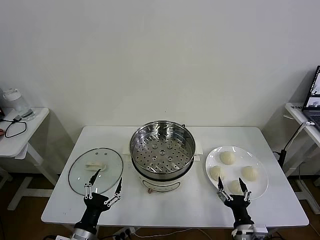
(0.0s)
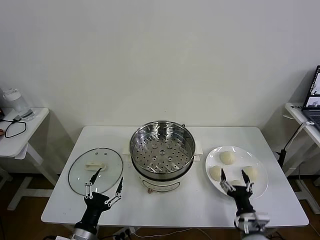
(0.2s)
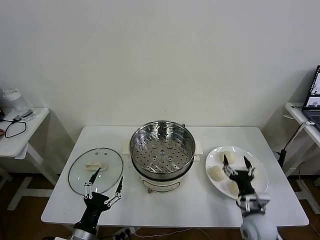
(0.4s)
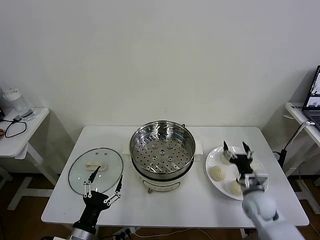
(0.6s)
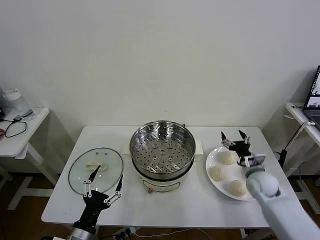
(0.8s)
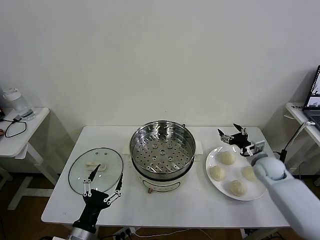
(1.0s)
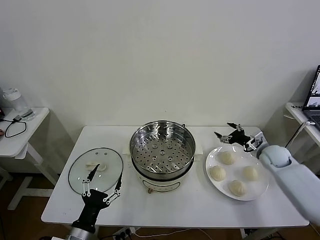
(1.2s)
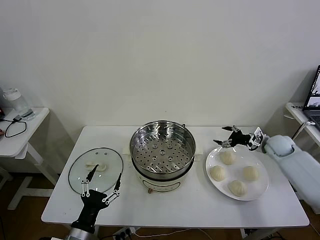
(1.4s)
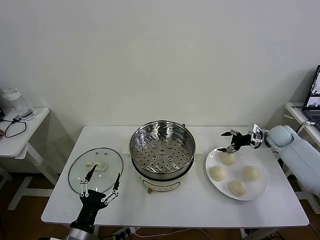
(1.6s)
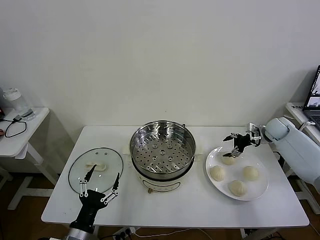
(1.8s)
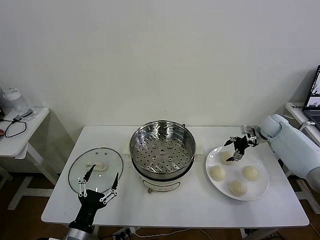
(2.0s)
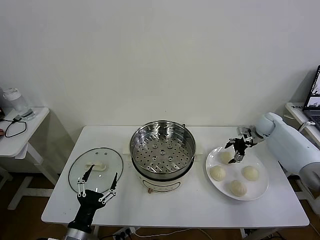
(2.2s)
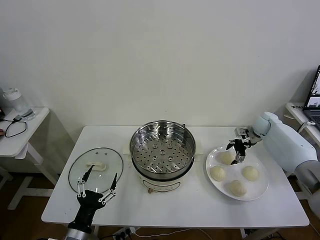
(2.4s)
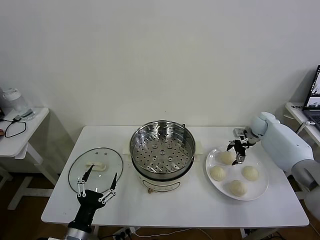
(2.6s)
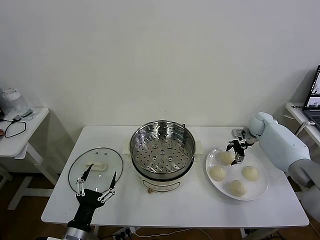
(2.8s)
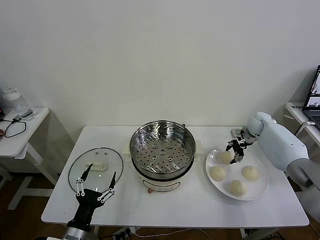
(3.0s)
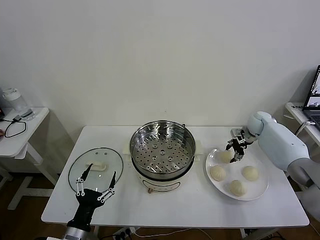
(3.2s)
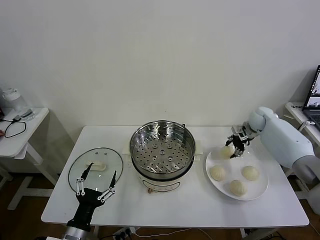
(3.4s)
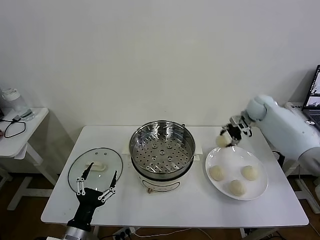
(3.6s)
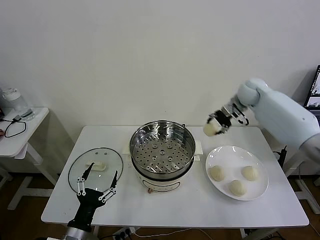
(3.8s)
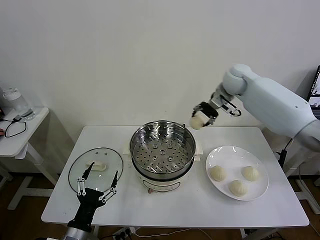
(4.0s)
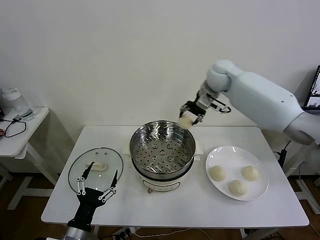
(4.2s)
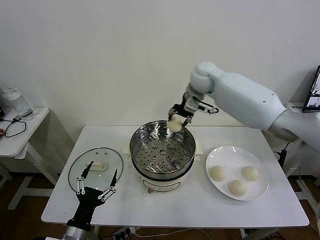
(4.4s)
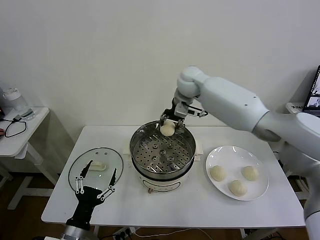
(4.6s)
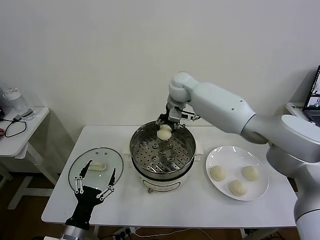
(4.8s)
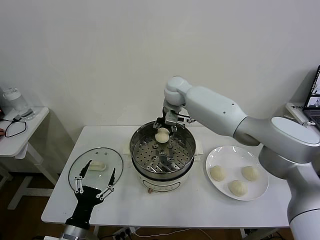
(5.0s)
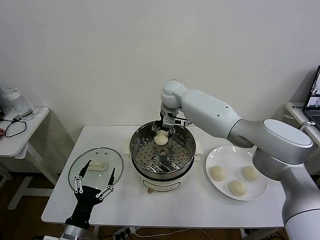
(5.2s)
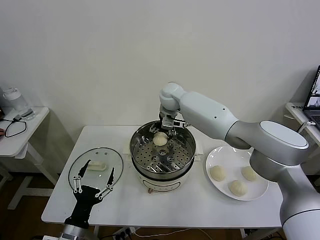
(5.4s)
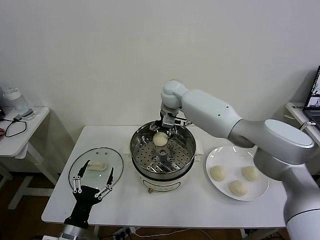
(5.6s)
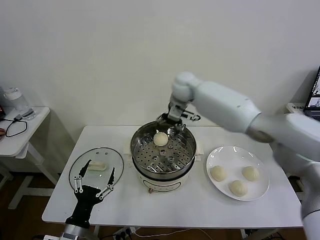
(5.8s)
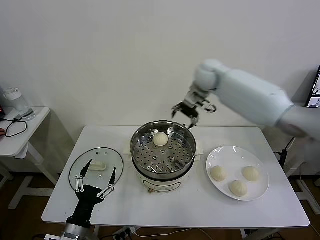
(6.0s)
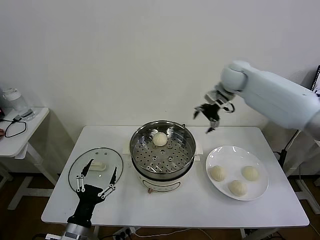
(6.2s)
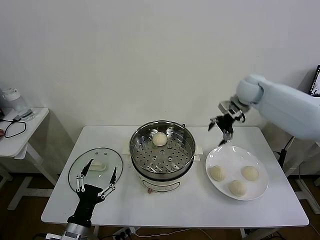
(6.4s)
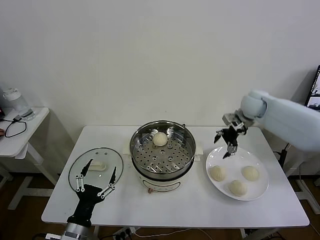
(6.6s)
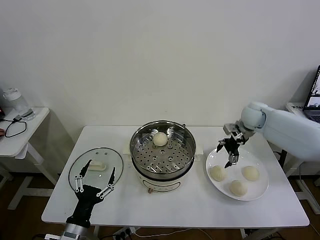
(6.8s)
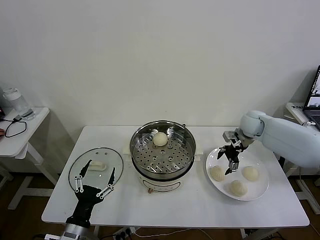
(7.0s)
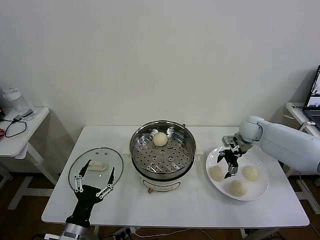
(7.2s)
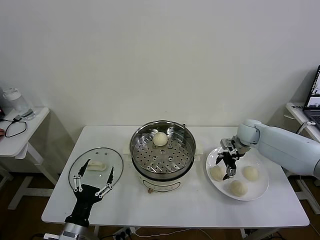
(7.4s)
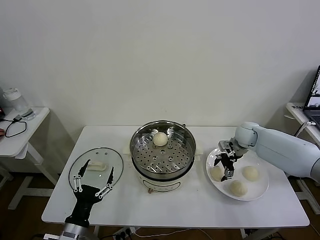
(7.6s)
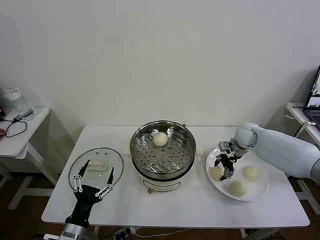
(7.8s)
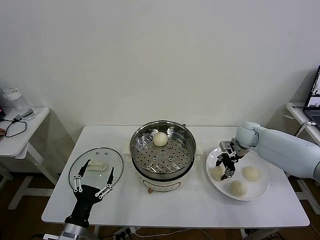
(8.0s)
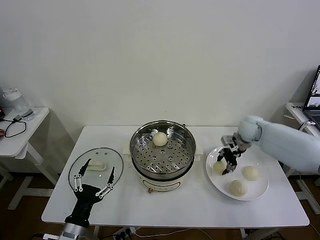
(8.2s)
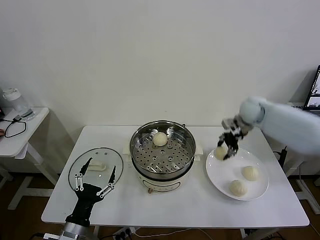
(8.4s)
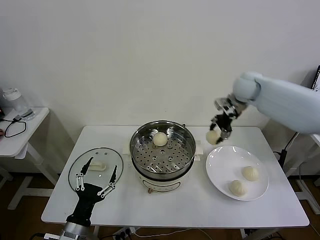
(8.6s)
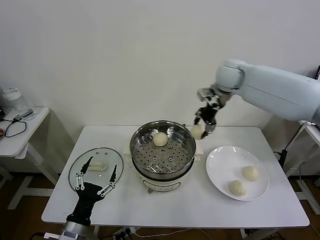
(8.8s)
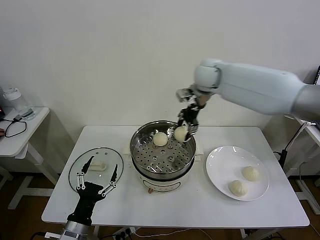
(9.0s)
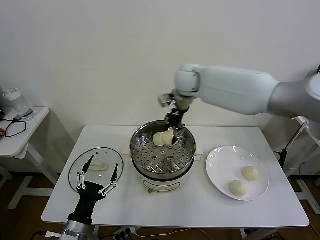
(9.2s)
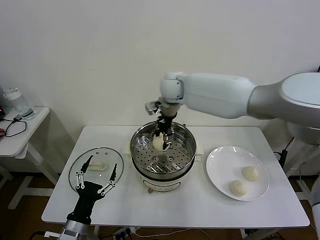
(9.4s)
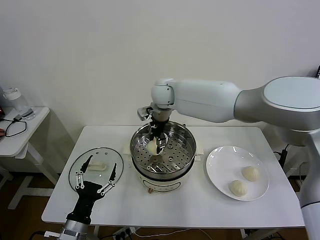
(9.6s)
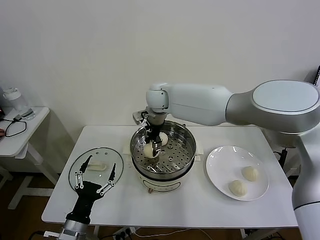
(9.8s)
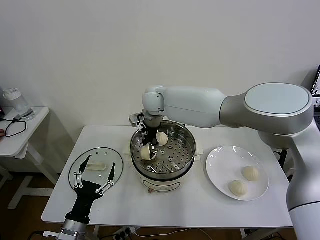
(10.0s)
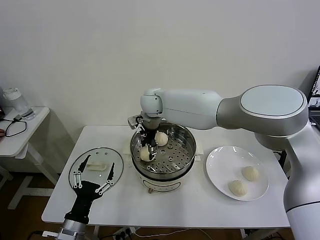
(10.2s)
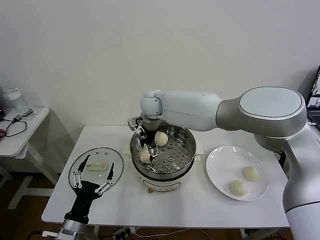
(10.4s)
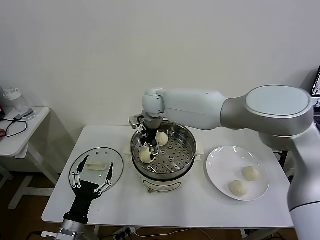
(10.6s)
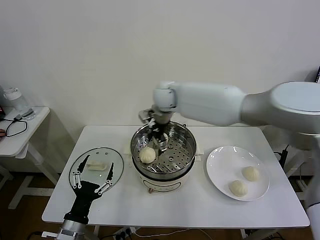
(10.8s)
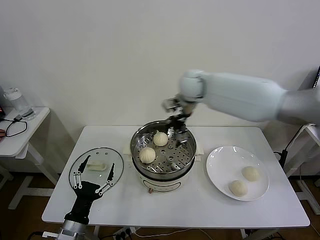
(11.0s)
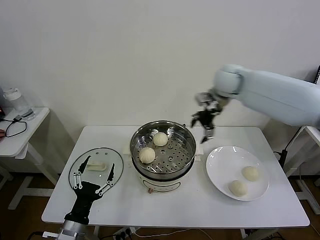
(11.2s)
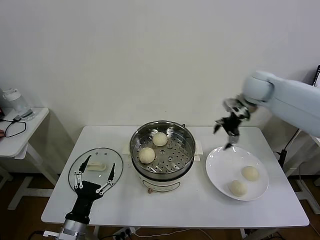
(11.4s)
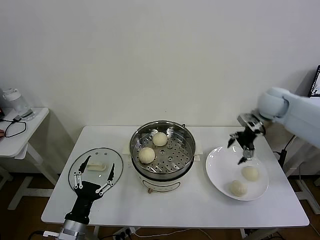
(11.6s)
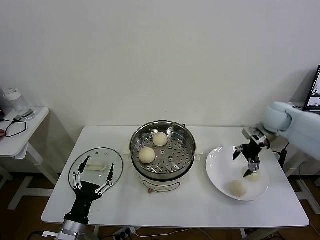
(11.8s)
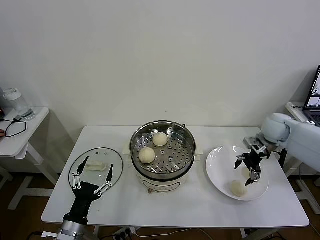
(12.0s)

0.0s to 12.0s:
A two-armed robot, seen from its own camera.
Task of the whole recording: take steamed baozi put them in steamer then cover it.
Step, 0.0s to 3.0s: Grasp the baozi in the plate with right gripper.
Step, 3.2s to 5.6s: Place the baozi on the steamer with right gripper.
Step, 5.8s to 8.0s: Grasp the baozi in the plate with right gripper.
Step, 8.2s to 10.6s: Place the baozi on the steamer with right gripper.
1.6s to 3.0s: The right gripper goes roughly 10 cm forward and to the left, and closes.
3.0s to 4.4s: The right gripper moves to the left and upward, roughly 35 cm.
4.4s to 6.0s: The right gripper goes some 10 cm to the right, and opens up.
6.0s to 7.6s: The right gripper heads downward and to the right, covering about 25 cm.
7.6s to 9.0s: The right gripper goes some 30 cm upward and to the left, and closes up.
9.0s to 10.4s: The right gripper moves to the left and downward, roughly 20 cm, and opens.
10.4s to 12.0s: The right gripper heads to the right, covering approximately 40 cm.

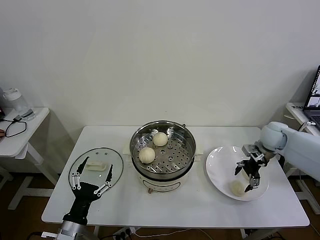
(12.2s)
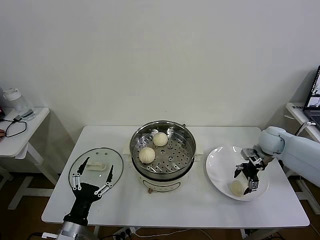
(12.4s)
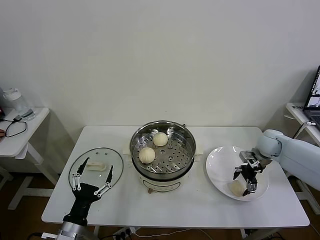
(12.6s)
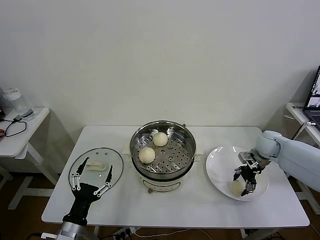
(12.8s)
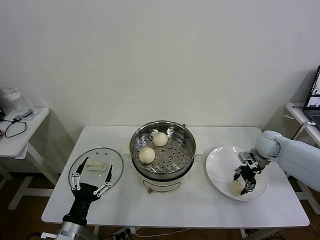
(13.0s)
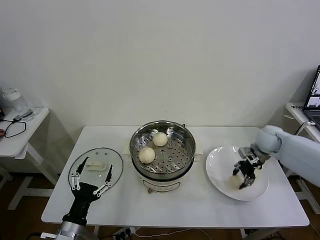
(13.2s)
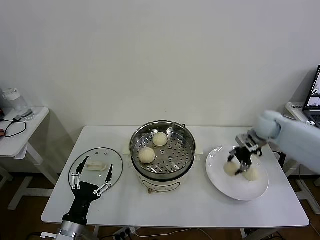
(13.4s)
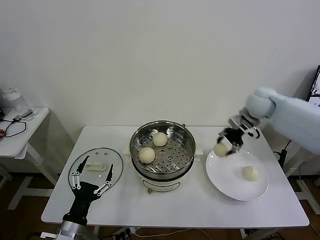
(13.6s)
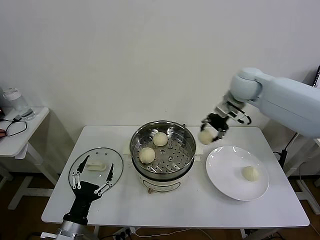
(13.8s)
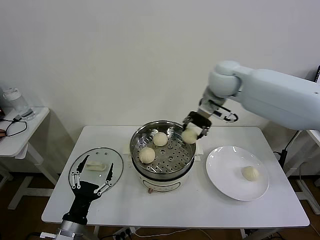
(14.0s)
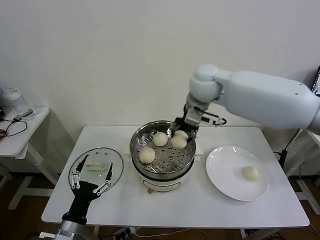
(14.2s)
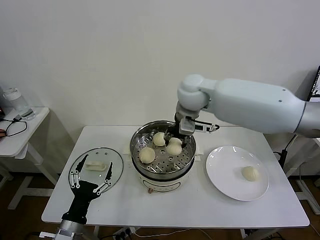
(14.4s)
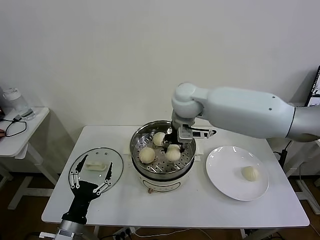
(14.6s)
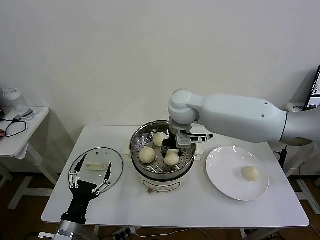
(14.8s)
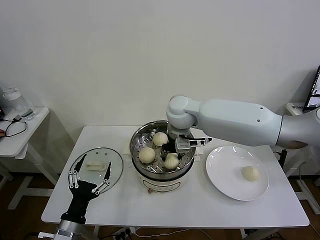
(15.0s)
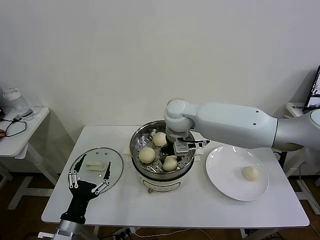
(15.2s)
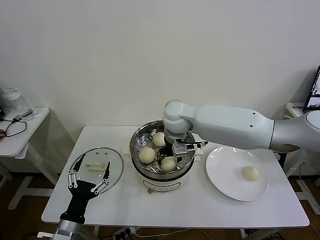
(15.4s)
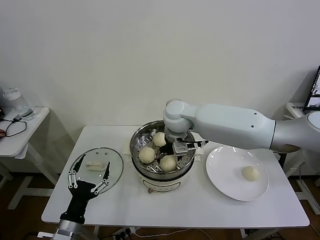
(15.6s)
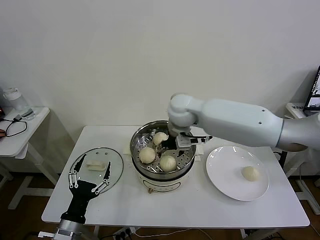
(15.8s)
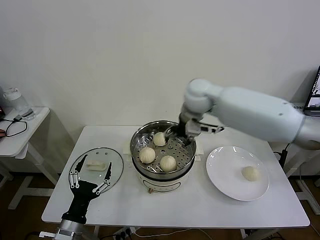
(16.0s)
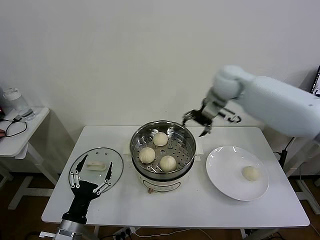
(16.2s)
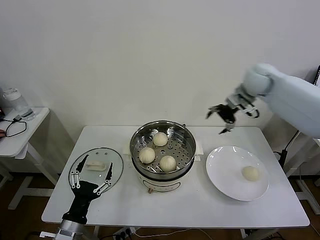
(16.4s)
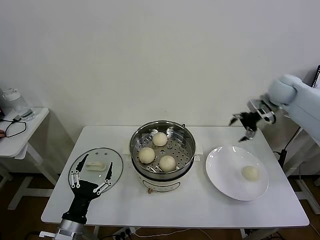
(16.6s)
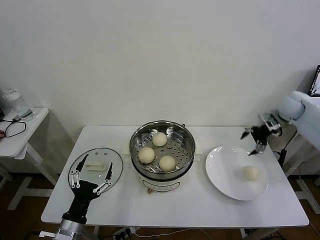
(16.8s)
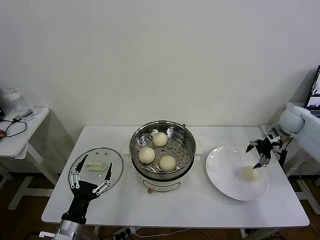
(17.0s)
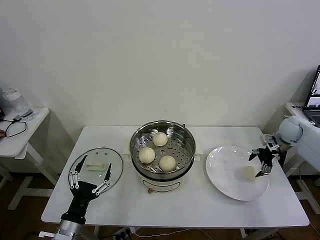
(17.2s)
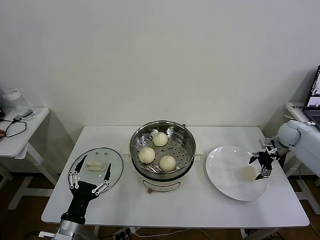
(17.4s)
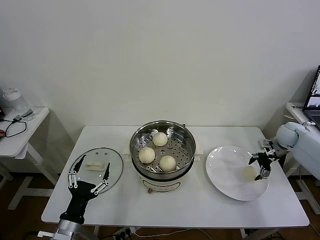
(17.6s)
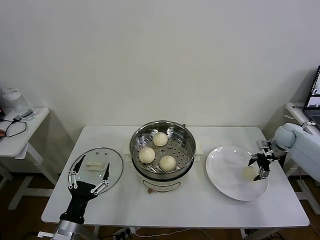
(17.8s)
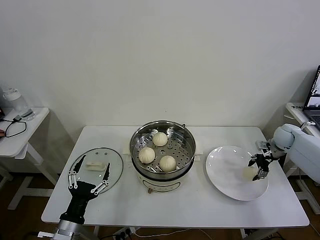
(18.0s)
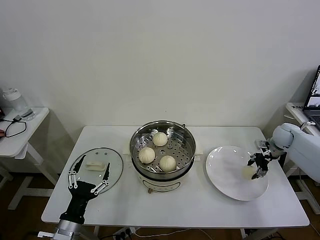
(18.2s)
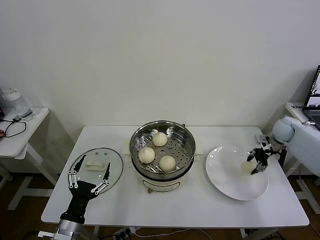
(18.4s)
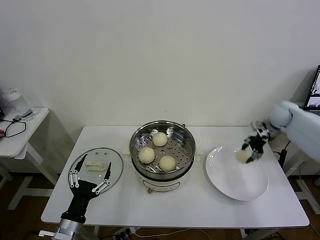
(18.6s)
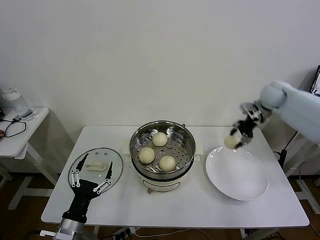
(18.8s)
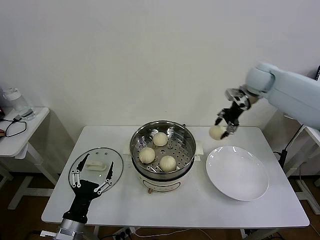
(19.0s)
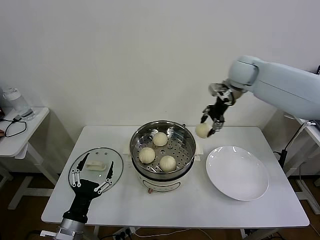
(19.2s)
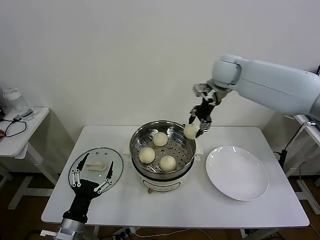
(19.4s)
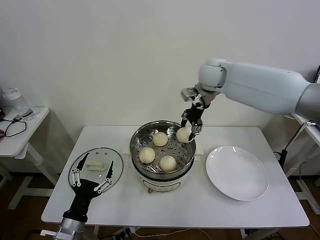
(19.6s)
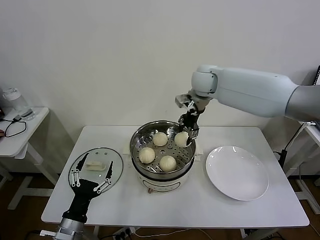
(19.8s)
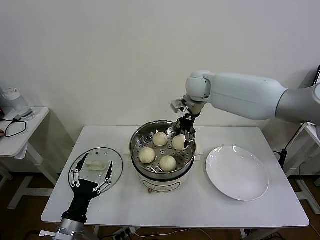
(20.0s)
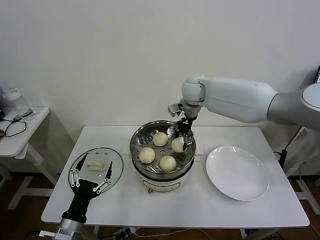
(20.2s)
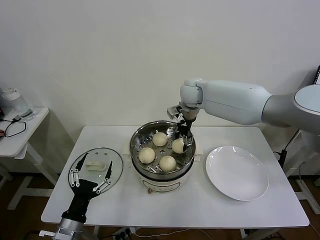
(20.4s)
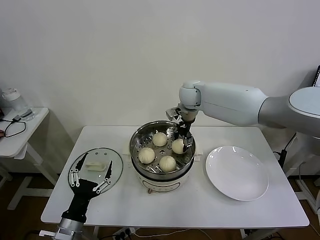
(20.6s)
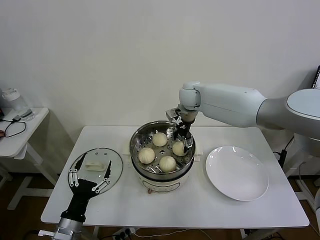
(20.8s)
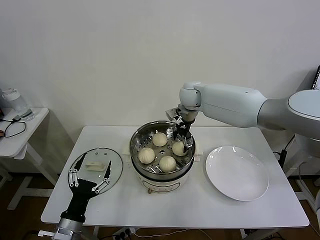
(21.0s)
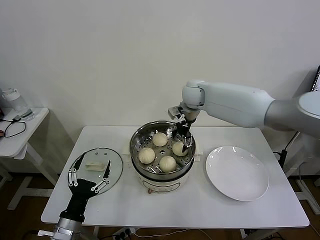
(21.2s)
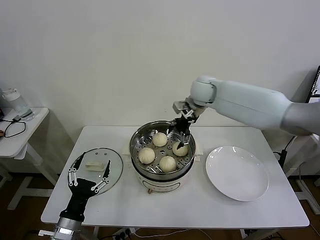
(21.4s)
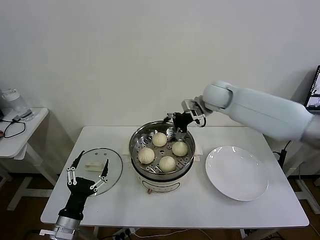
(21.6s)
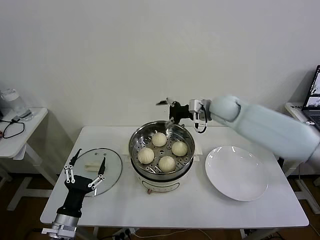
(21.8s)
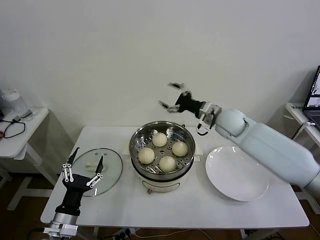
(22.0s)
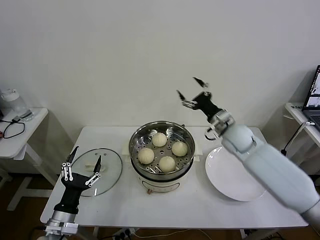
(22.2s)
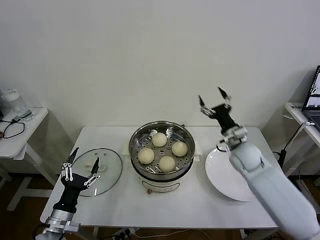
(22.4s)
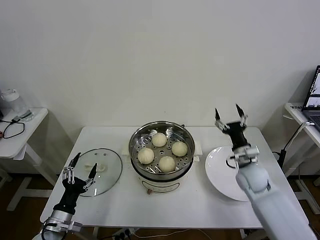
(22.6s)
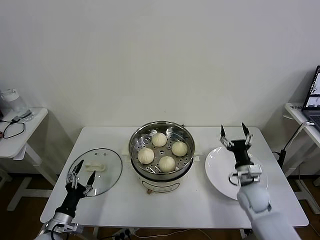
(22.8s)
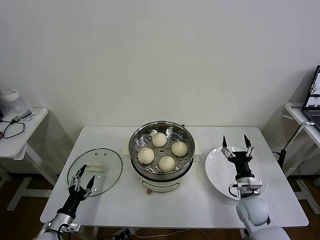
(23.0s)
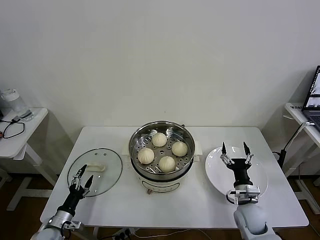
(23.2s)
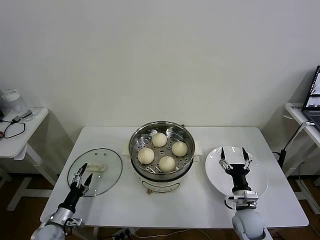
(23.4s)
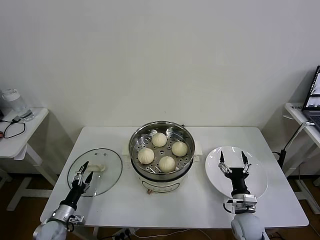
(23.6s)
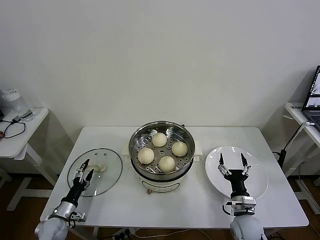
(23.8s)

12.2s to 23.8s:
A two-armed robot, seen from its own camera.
Task of the whole recording: take steamed baozi put them in steamer then cover it.
Step, 13.2s to 15.4s: Place the baozi on the steamer with right gripper.
Step, 15.8s to 18.2s: Grasp the baozi in the plate with right gripper.
Step, 18.4s to 20.8s: Place the baozi on the steamer with right gripper.
12.2s to 13.6s: The right gripper moves upward and to the left, some 15 cm, and closes its fingers.
13.6s to 15.0s: The right gripper is displaced to the left by roughly 25 cm.
15.0s to 16.6s: The right gripper is displaced to the right by about 35 cm, and opens its fingers.
16.6s to 18.0s: The right gripper goes some 20 cm downward and to the right, and closes.
18.0s to 19.4s: The right gripper goes approximately 40 cm to the left and upward.
19.4s to 21.0s: The right gripper moves downward and to the left, approximately 15 cm, and opens up.
21.0s to 22.4s: The left gripper moves about 5 cm; the right gripper goes about 30 cm to the right, backward and downward.
22.4s to 23.8s: The left gripper shifts some 20 cm downward, to the left and forward. Meanwhile the right gripper goes some 25 cm backward and downward.
